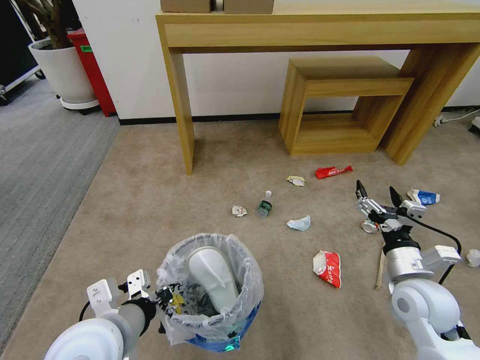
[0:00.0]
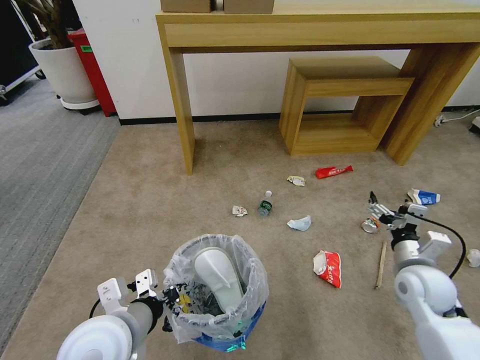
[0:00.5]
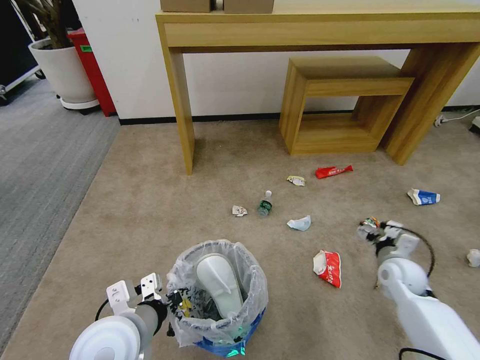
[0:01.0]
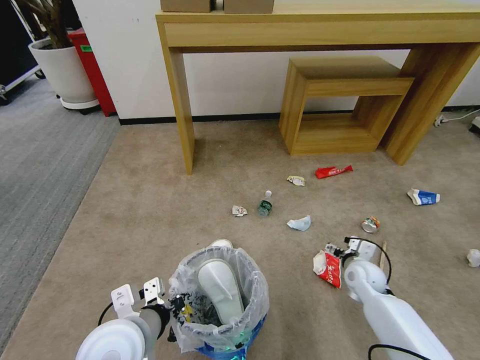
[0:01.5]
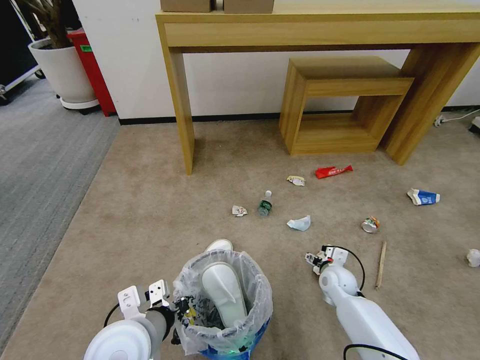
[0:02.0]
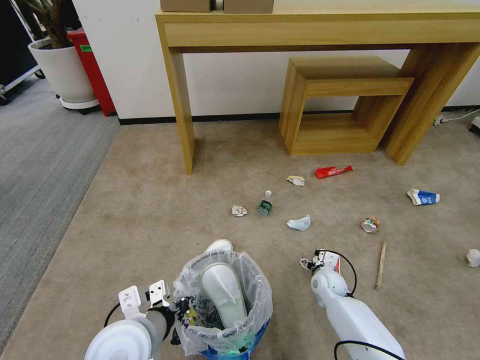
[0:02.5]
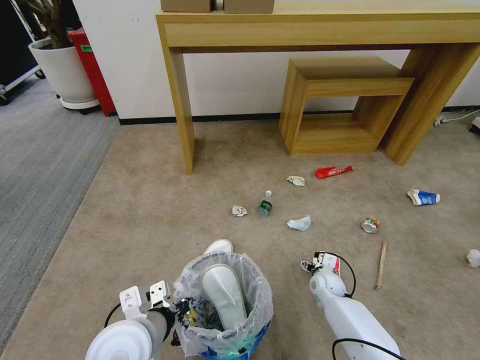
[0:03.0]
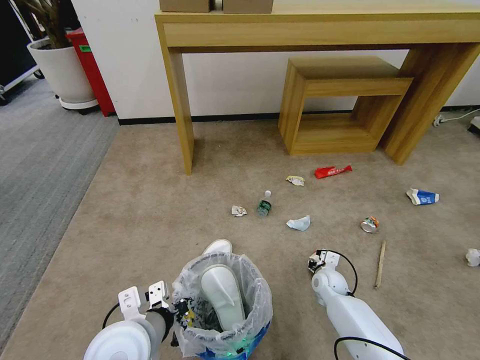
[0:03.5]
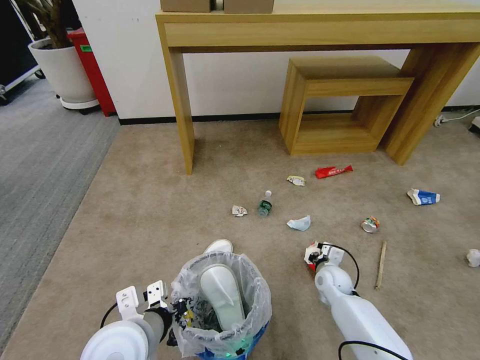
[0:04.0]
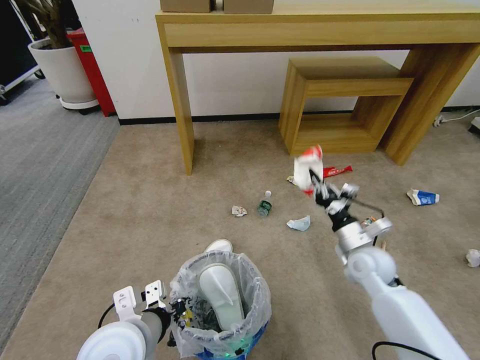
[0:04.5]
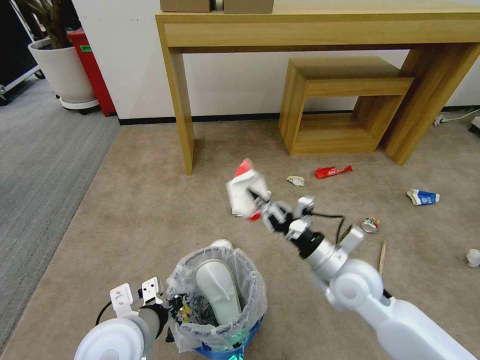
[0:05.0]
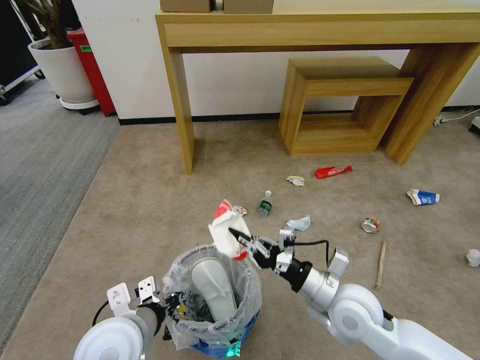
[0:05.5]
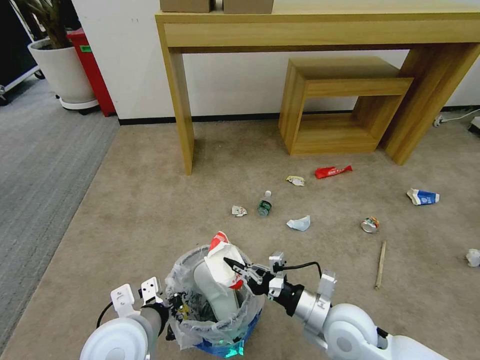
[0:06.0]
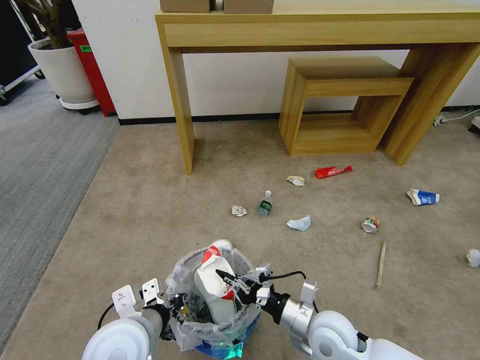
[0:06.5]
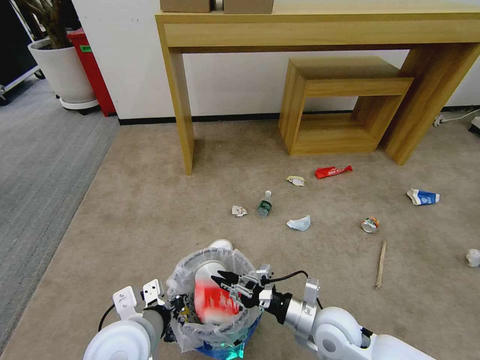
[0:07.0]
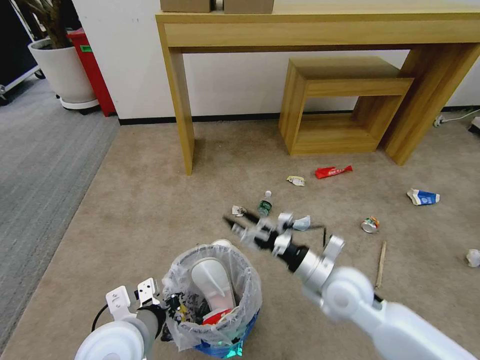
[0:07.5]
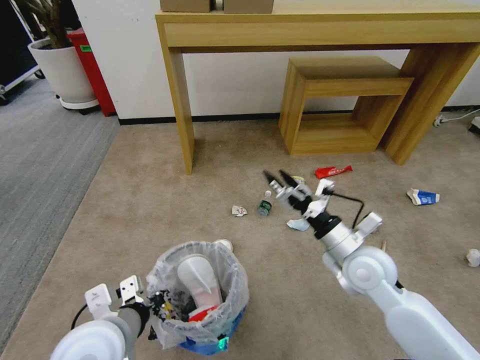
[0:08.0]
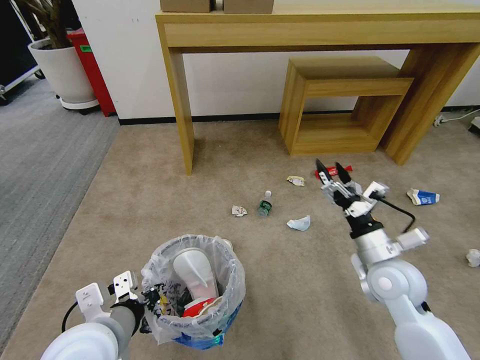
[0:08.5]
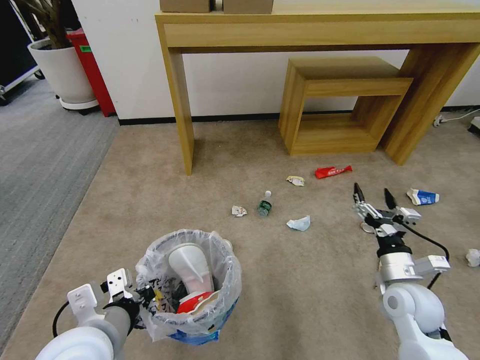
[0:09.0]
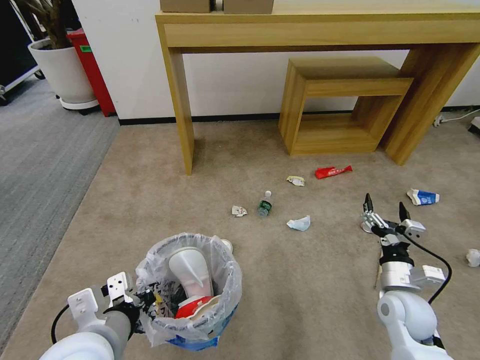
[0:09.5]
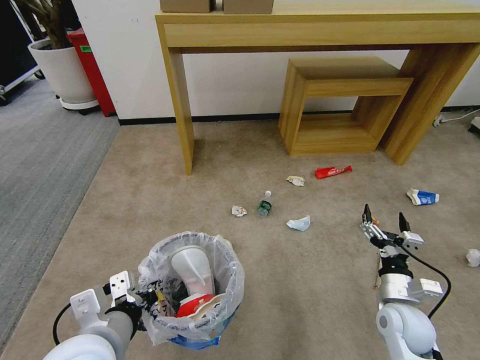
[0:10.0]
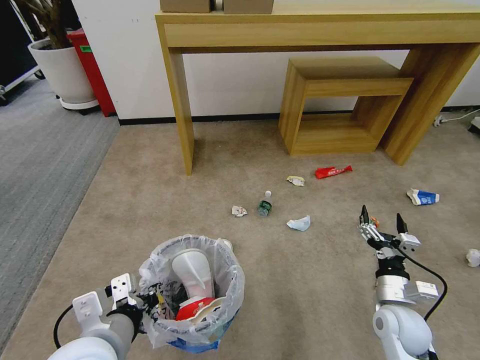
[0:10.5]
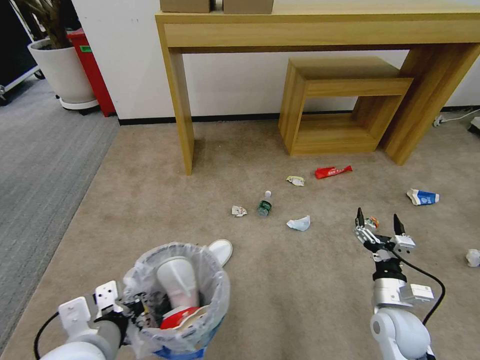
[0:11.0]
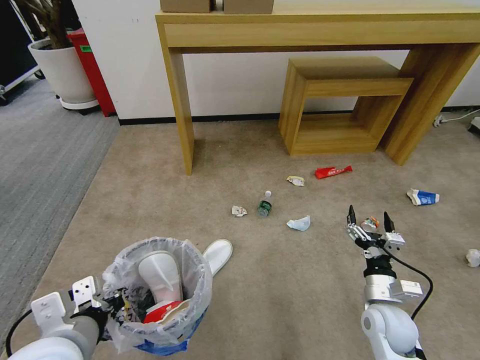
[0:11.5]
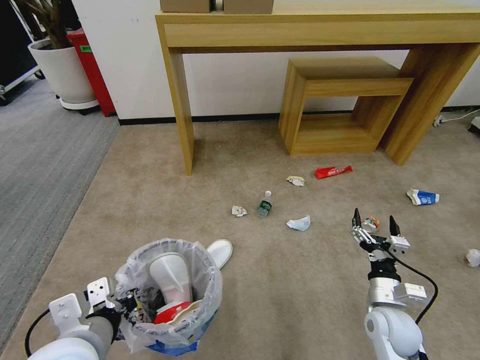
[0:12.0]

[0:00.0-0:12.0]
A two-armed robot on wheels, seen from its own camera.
Task of the whole recording: Pick up the trash bin and place the garbage on the floor into it.
0:00.0 to 0:02.0: The left gripper ends up about 5 cm from where it was; the right gripper moves downward and forward, about 25 cm.
0:02.0 to 0:04.0: The right gripper closes its fingers.
0:04.0 to 0:06.0: The right gripper is displaced backward, upward and to the left by roughly 25 cm.
0:06.0 to 0:08.0: The right gripper heads forward and upward, covering approximately 10 cm, and opens up.
0:08.0 to 0:10.0: The right gripper shifts about 15 cm downward, to the right and backward.
0:10.0 to 0:12.0: There are only small adjustments of the grippers.

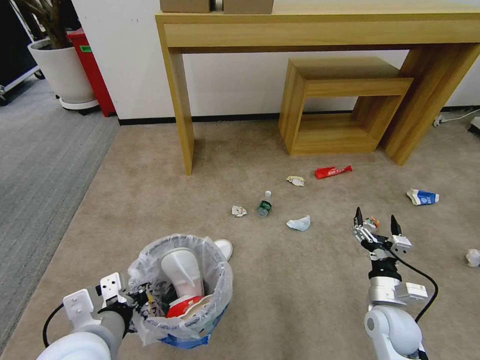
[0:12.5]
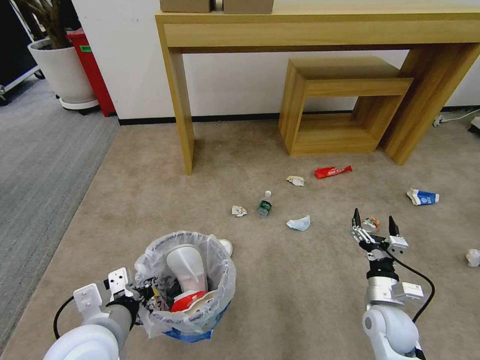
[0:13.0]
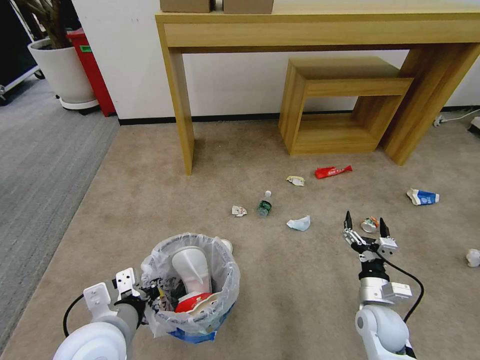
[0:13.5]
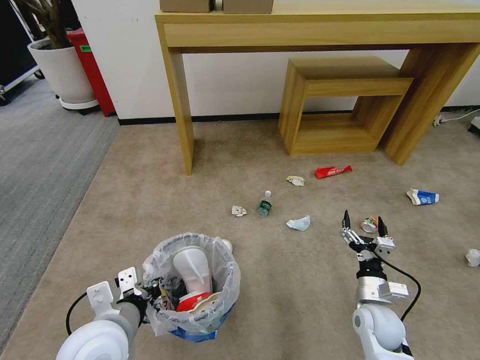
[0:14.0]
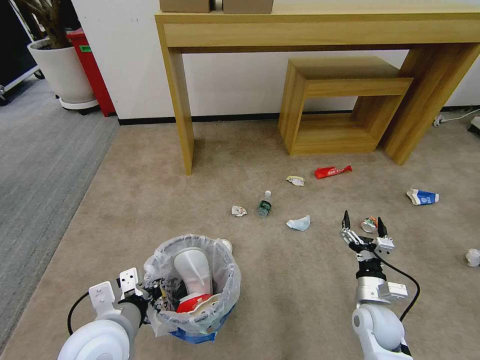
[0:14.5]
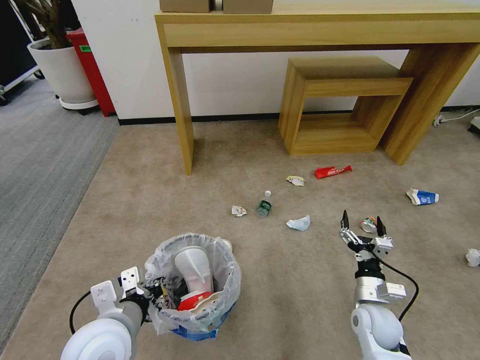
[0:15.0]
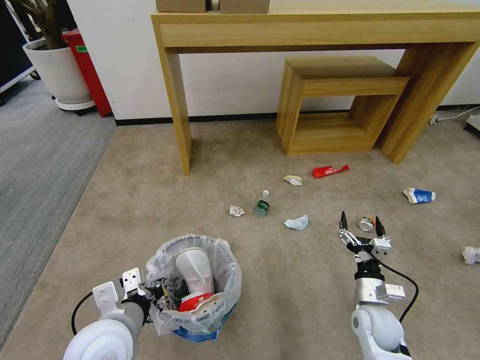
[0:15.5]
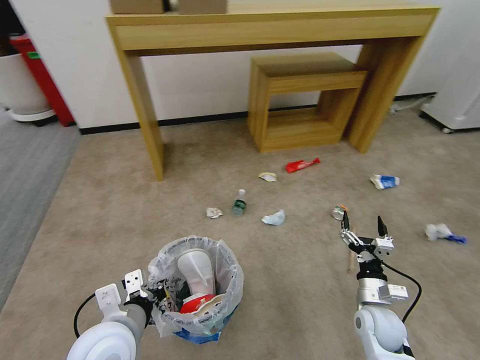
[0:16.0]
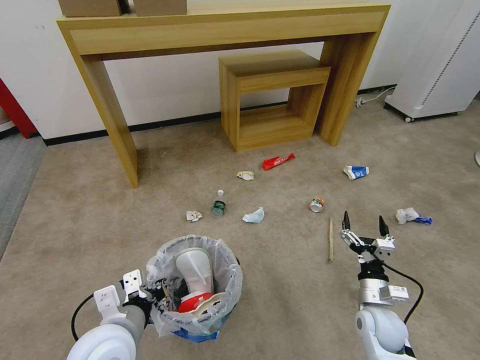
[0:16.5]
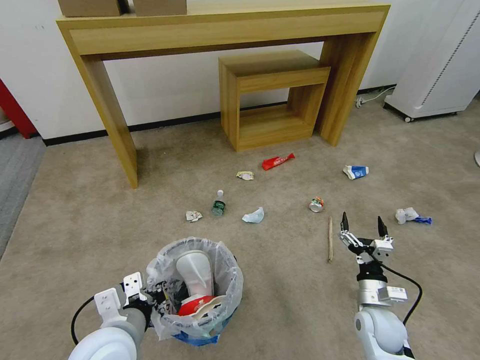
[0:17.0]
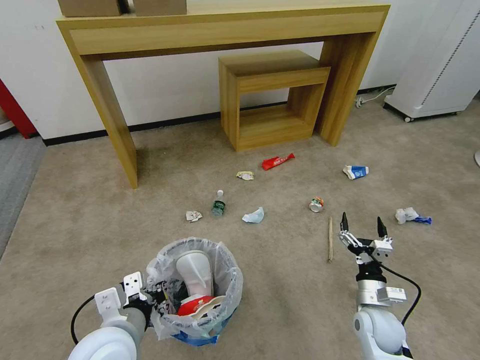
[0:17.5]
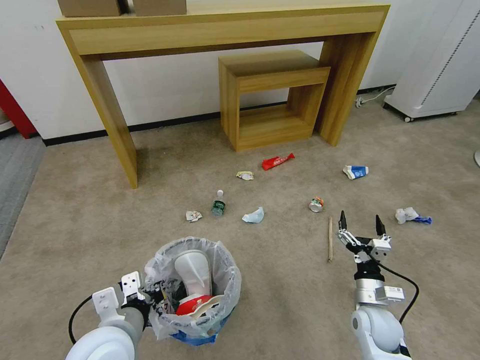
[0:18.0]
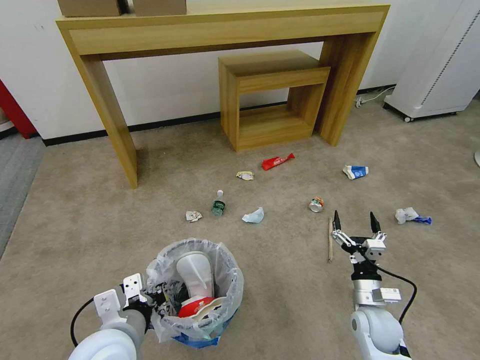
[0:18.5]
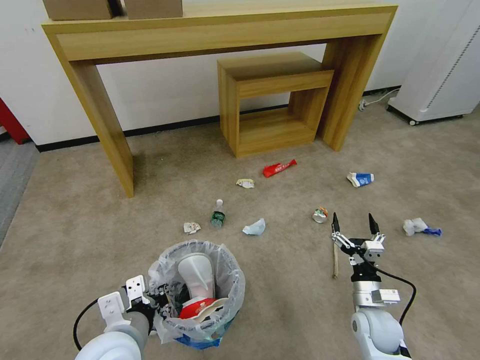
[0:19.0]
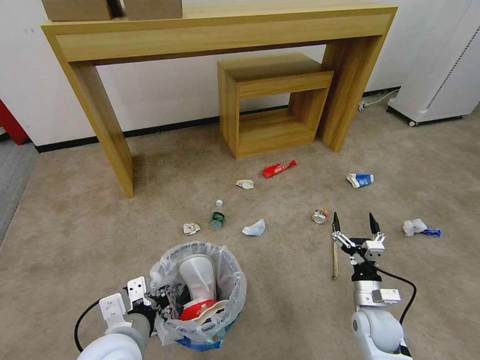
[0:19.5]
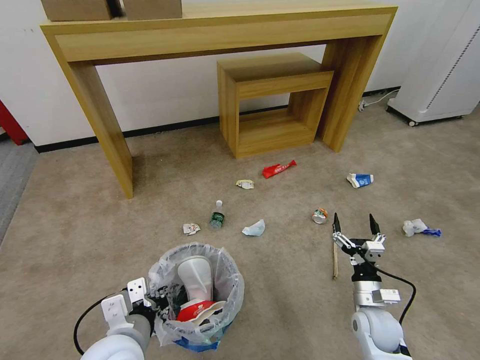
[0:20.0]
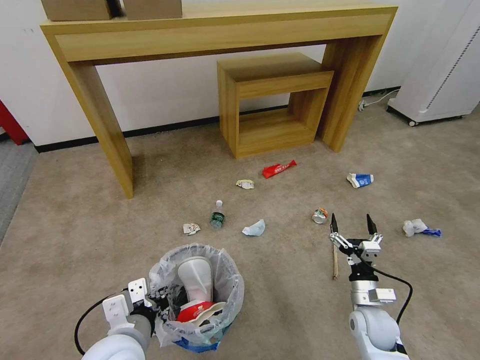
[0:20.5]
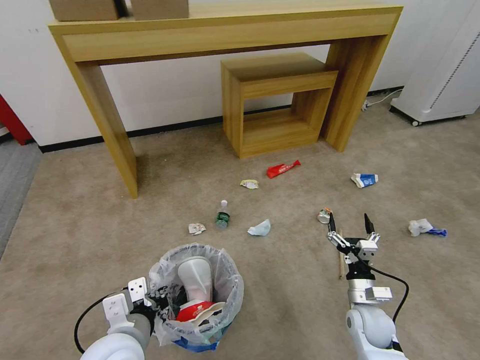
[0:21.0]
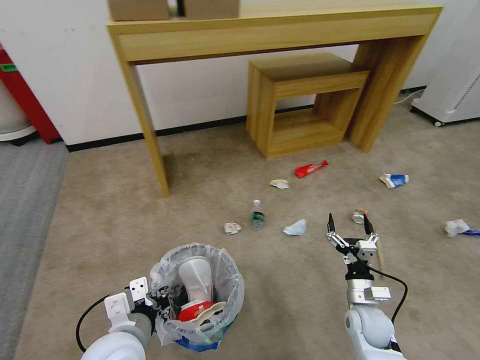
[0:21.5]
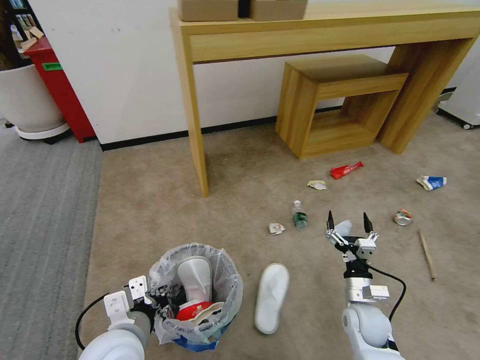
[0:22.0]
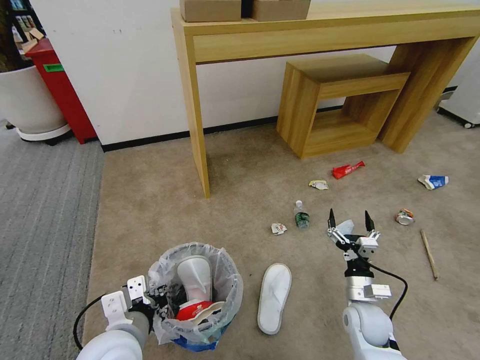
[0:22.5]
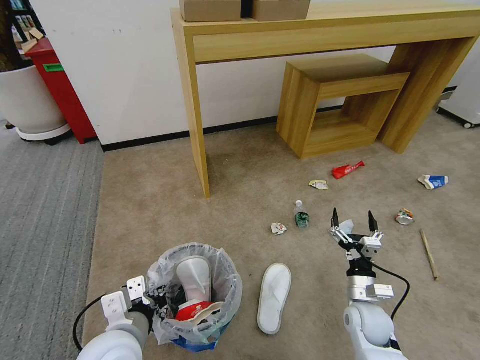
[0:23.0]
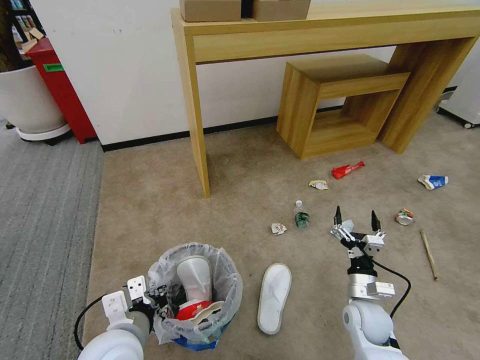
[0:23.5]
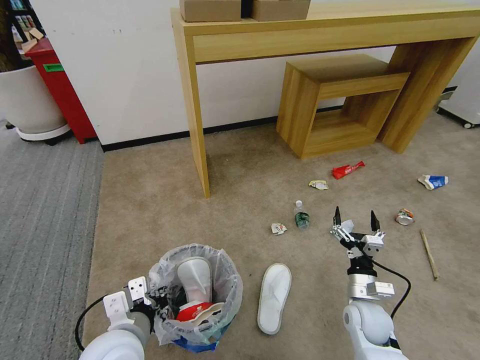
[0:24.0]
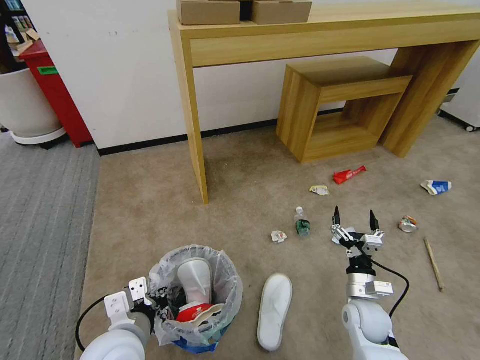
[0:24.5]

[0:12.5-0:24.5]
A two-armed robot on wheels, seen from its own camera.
Task of the whole recording: Pick up the trash bin and place the garbage on the floor into it.
0:12.5 to 0:14.5: The grippers move only a little.
0:16.5 to 0:20.5: The grippers make only small movements.
0:22.5 to 0:24.5: Both grippers stay about where they are.

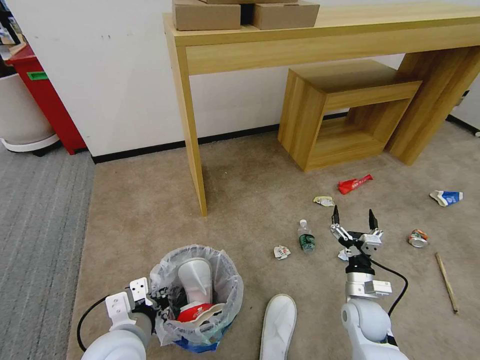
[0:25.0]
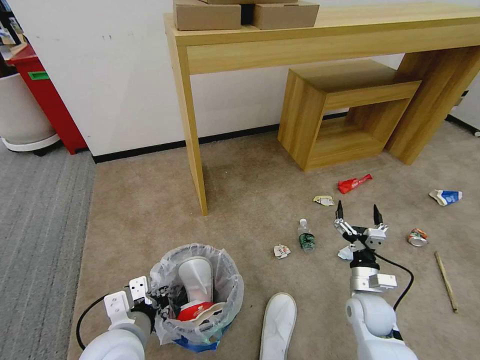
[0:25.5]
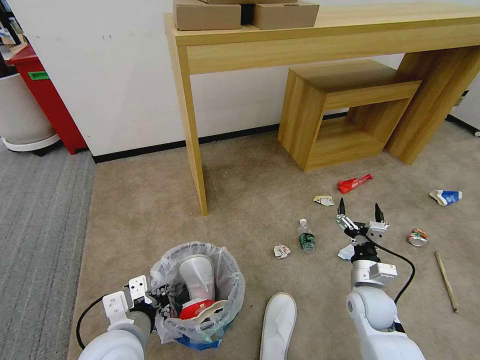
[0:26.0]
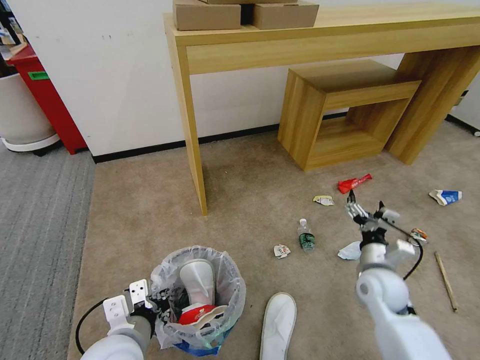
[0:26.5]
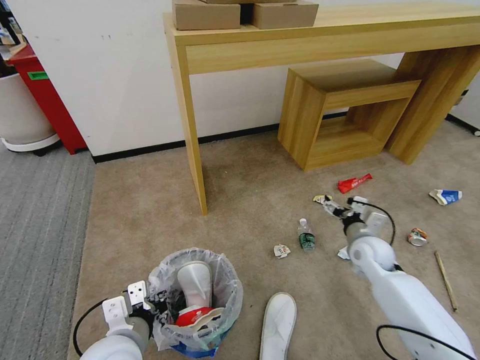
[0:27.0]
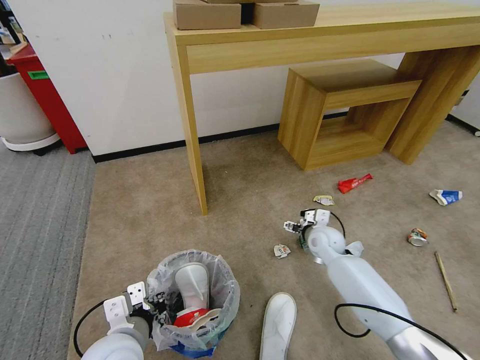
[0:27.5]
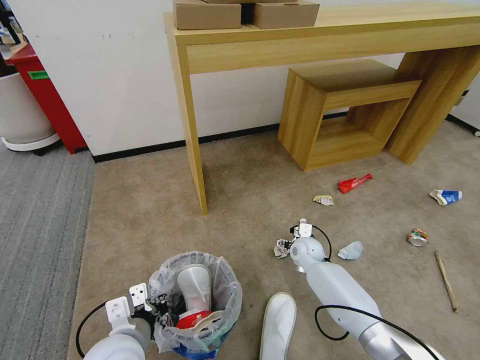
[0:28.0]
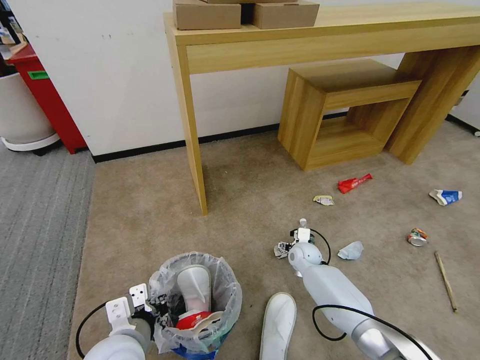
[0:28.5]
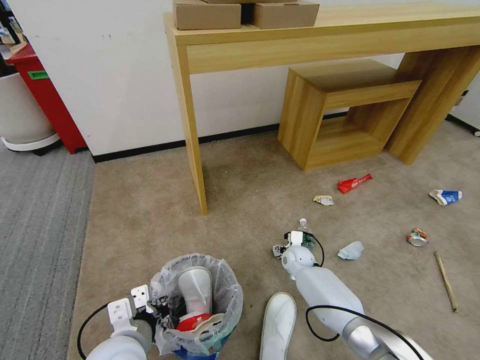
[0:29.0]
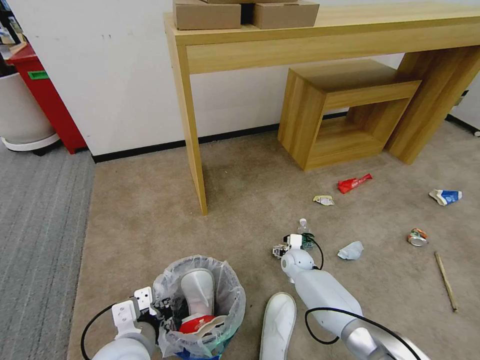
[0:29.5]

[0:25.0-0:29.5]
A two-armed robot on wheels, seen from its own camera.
Task of the whole recording: Pick up the trash bin and place the garbage on the floor into it.
0:25.0 to 0:27.0: The right gripper travels forward and upward by about 15 cm.
0:27.0 to 0:29.5: The right gripper shifts some 20 cm to the left and downward.
